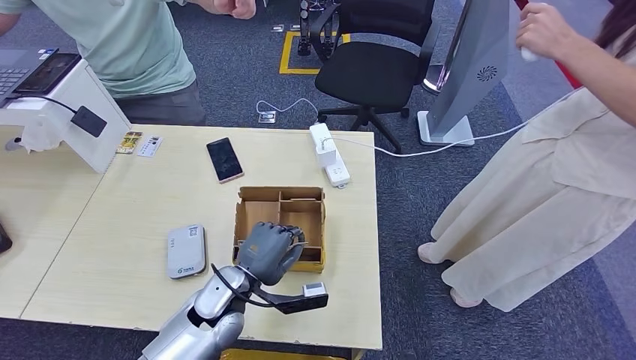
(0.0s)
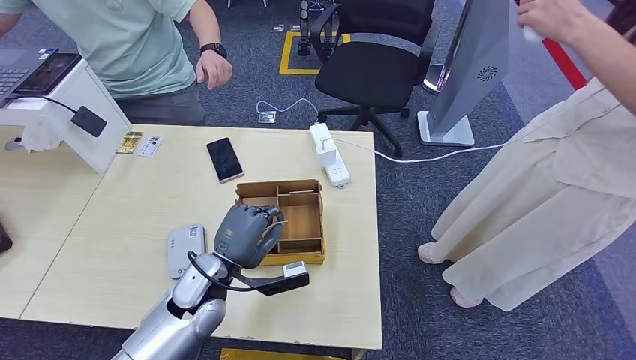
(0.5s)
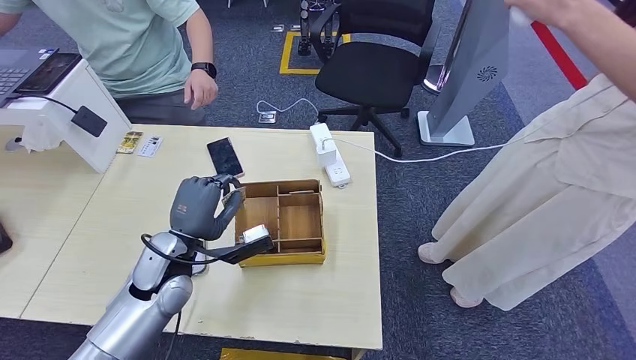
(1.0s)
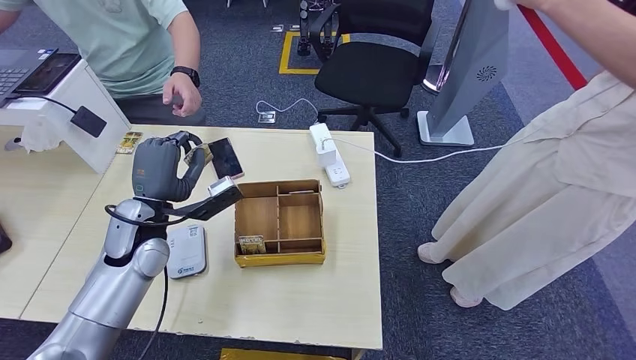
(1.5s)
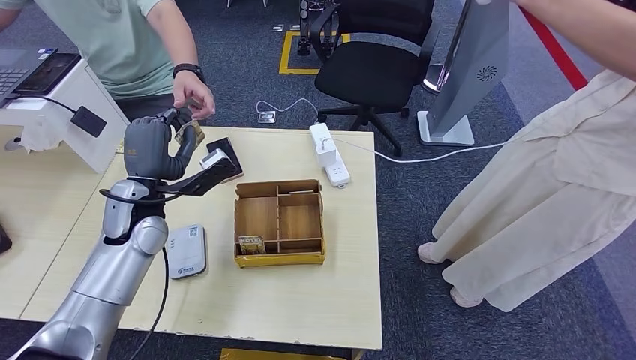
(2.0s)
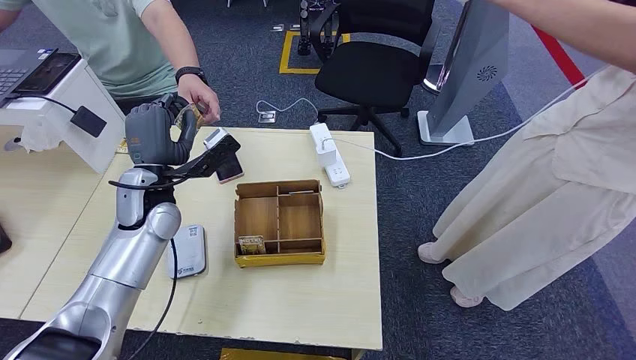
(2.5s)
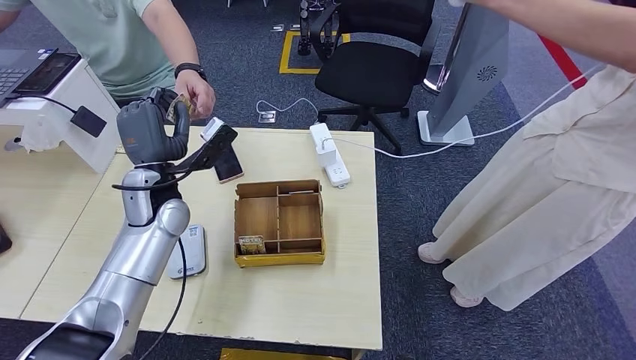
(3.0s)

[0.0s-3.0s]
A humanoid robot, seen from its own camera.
Step, 0.0s to 2.5s: Hand the room key to the person.
0.0s to 1.5s: The left hand shifts some 20 cm to the left, upward and forward.
1.5s to 3.0s: The left hand is displaced forward by about 5 cm.
